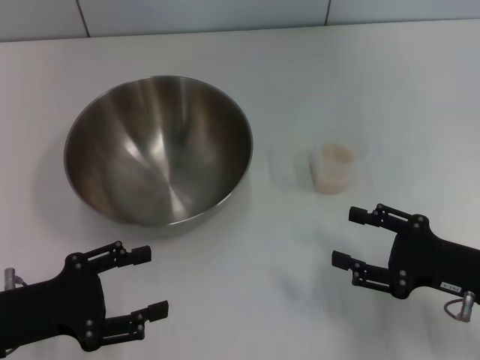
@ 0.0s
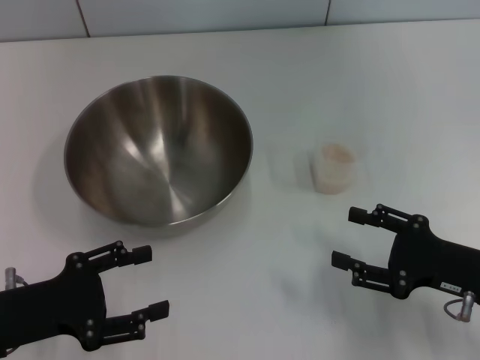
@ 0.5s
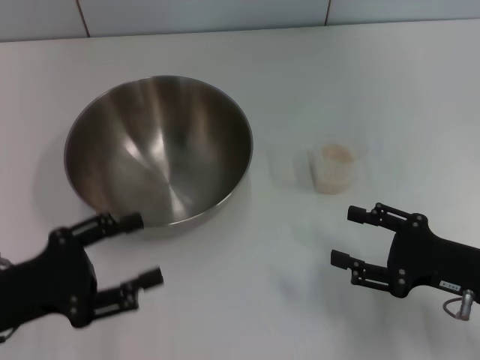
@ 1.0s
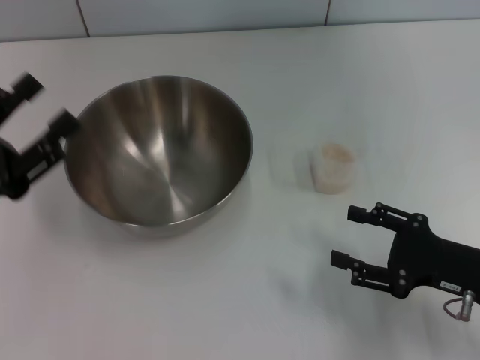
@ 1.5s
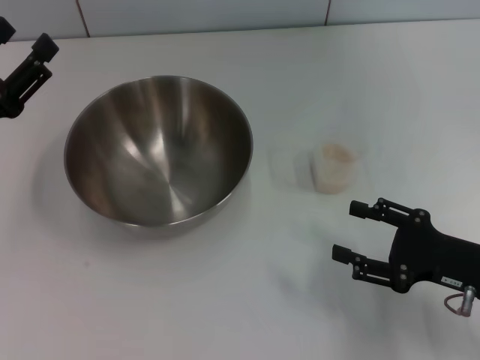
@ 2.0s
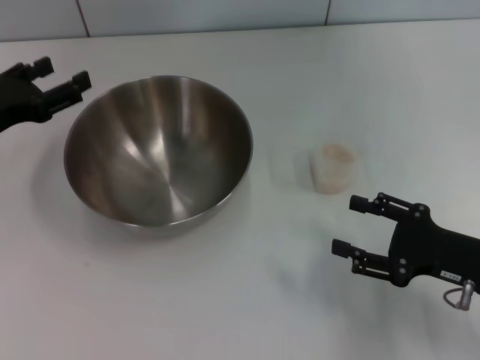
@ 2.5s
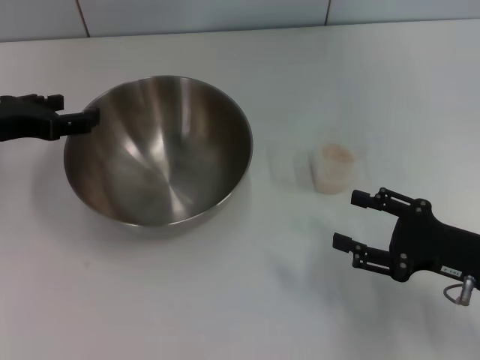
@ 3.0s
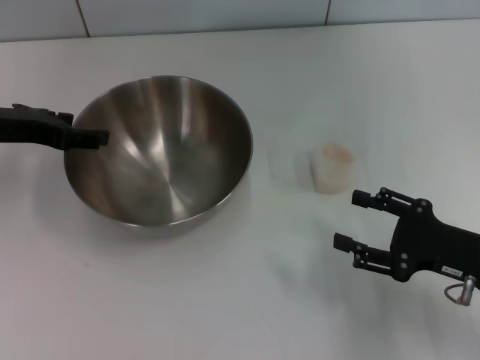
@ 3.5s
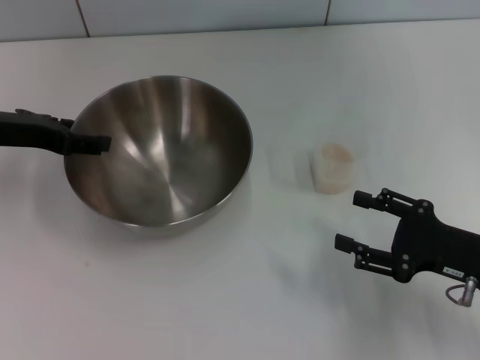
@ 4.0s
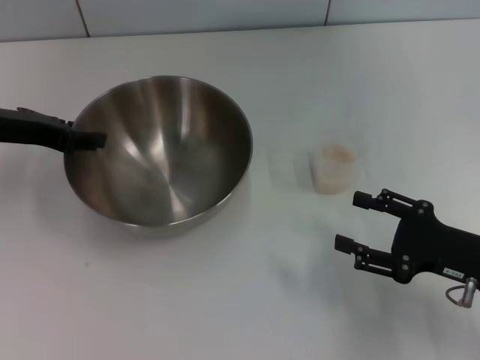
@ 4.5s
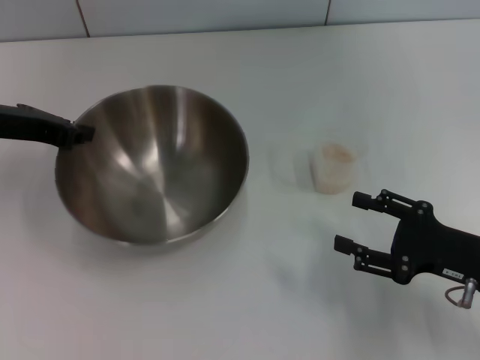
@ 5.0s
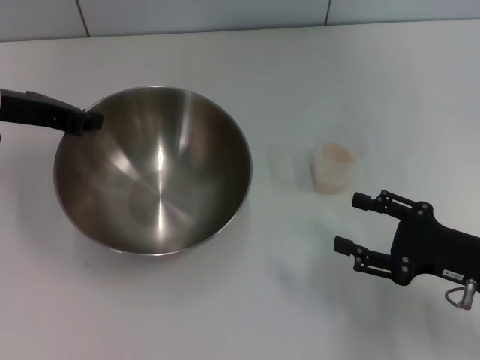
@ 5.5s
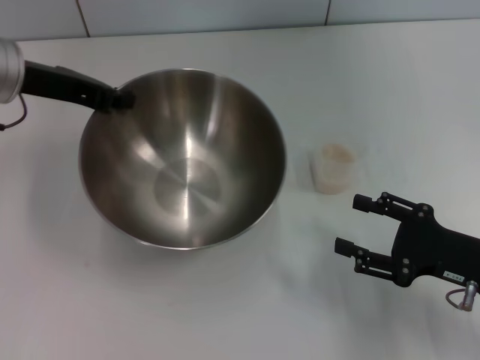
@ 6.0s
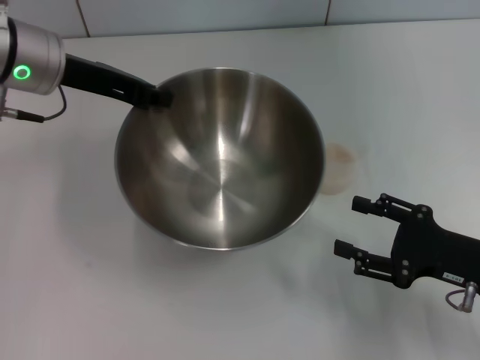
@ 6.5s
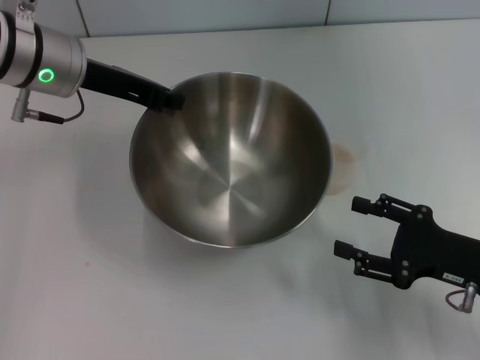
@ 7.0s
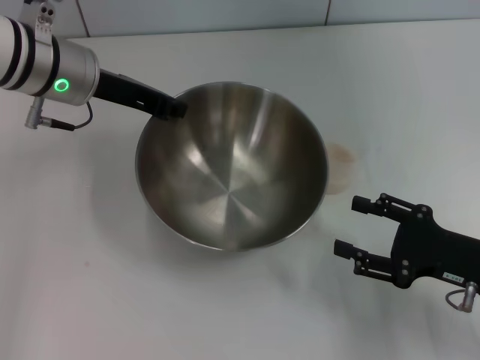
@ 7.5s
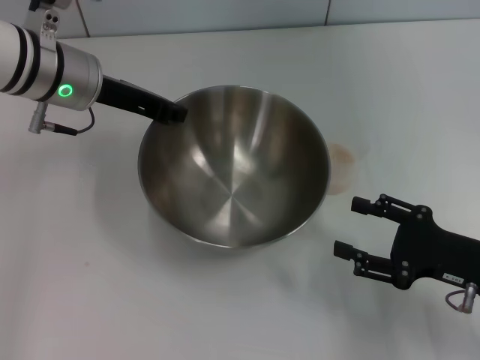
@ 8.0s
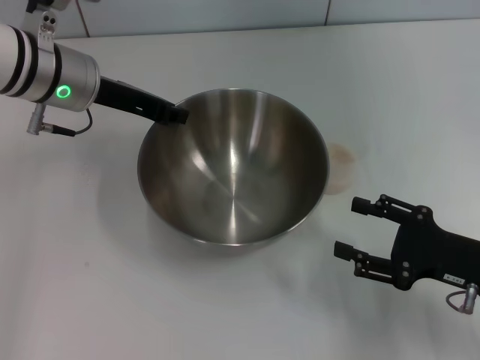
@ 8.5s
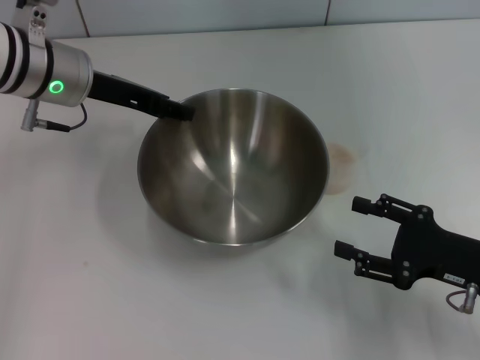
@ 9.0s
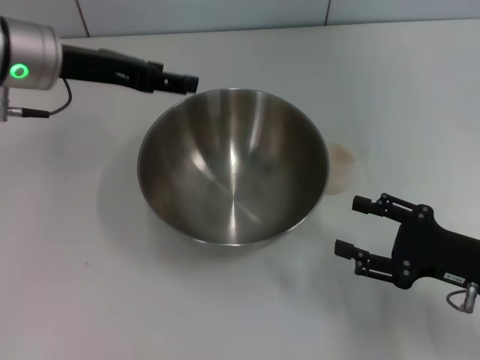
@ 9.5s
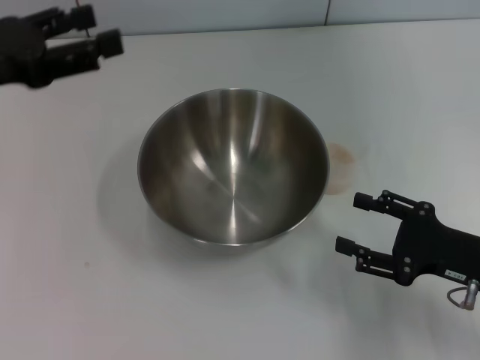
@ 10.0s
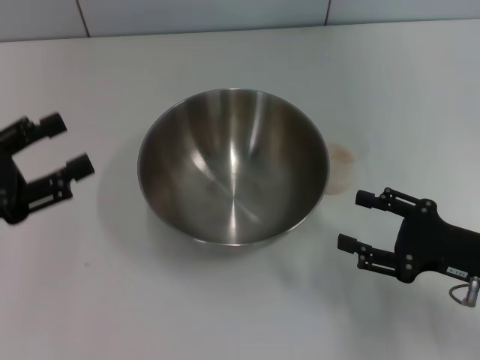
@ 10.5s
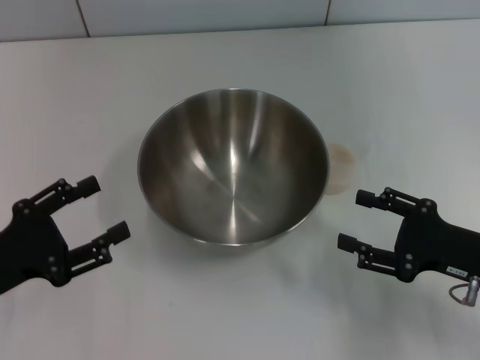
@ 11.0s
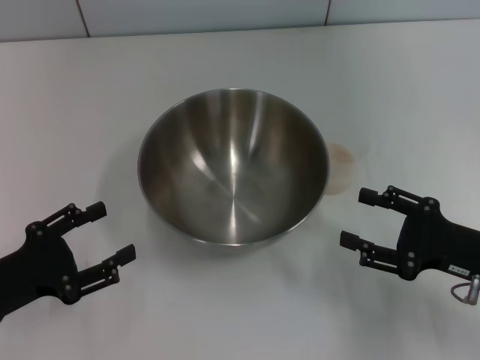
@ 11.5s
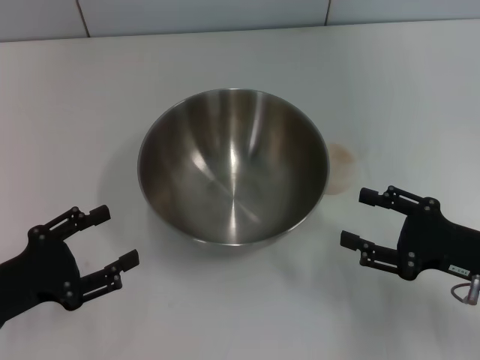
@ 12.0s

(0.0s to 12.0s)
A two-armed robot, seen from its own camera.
Task of the whole recording: Place the bowl in the middle of the table with one hand and pour the rice from the grain cup into it with the other hand.
Step, 0.0s - 6.0s: Pick up the bowl with the left gripper.
Step, 6.5s - 9.5s: Place the bowl in the center of view with the left gripper.
0.0s - 2.0s: The left gripper shifts some 10 cm forward.
2.0s - 4.0s: The left gripper moves forward, some 10 cm.
4.0s - 6.0s: The left gripper shifts by some 5 cm, and closes its fingers.
6.0s - 8.0s: The left gripper is displaced to the right by roughly 5 cm.
8.0s - 10.0s: The left gripper shifts approximately 15 cm to the left and backward, and opens up.
10.0s - 12.0s: The left gripper shifts about 20 cm downward and backward.

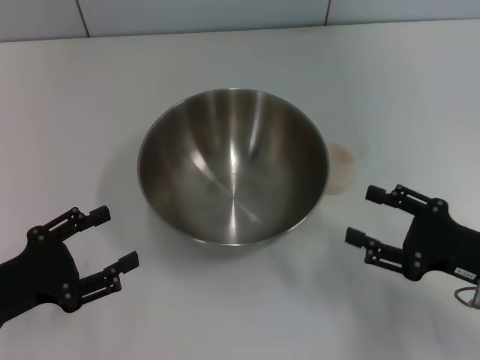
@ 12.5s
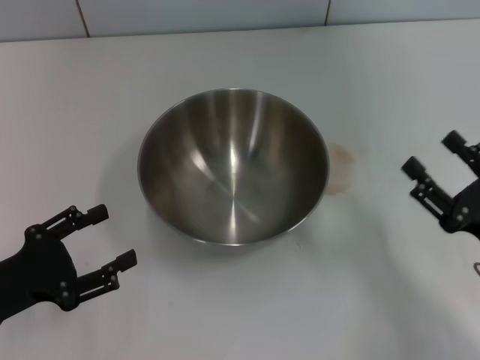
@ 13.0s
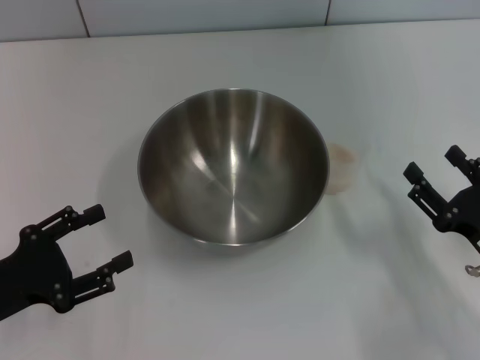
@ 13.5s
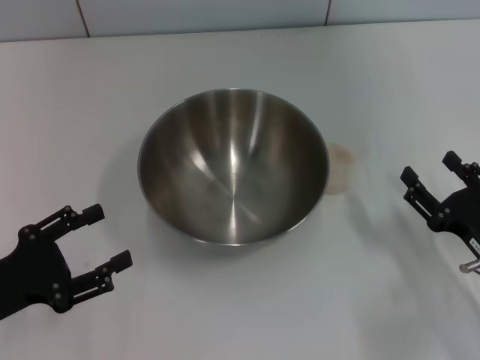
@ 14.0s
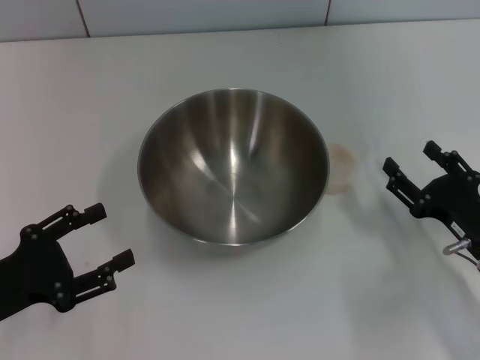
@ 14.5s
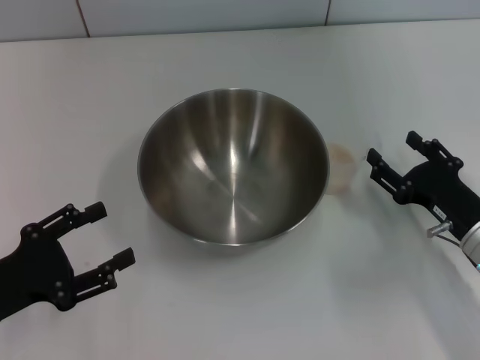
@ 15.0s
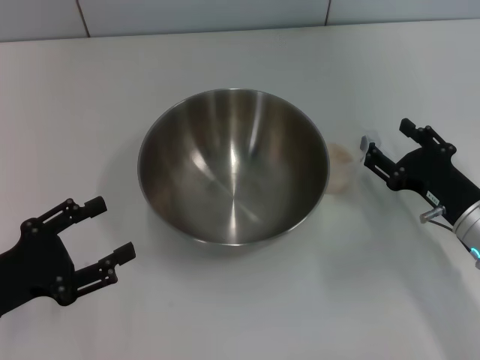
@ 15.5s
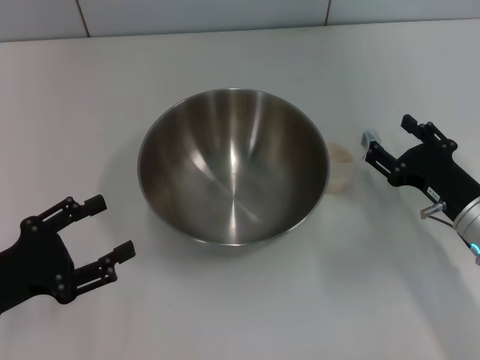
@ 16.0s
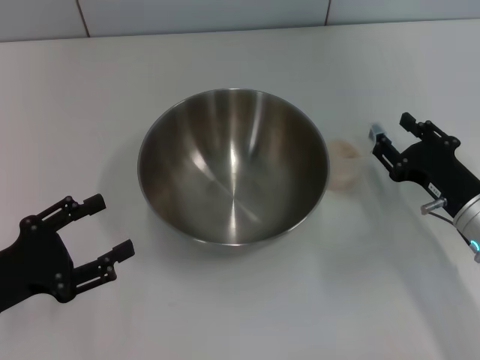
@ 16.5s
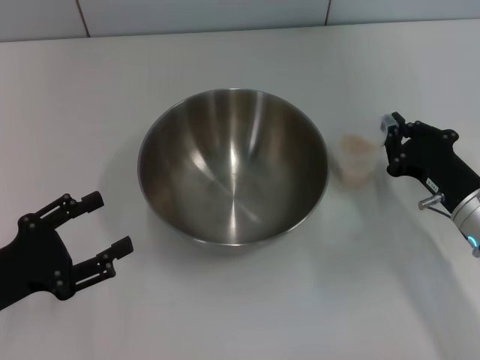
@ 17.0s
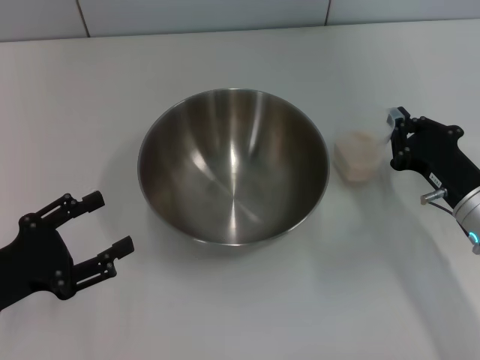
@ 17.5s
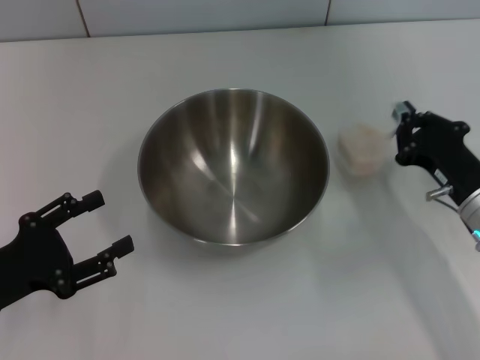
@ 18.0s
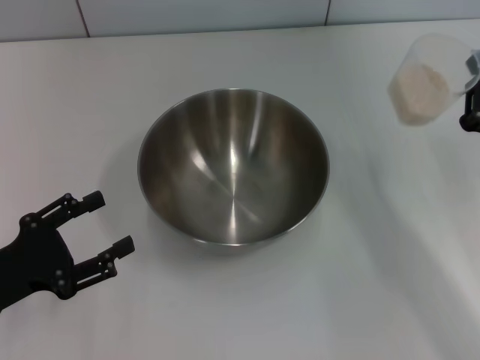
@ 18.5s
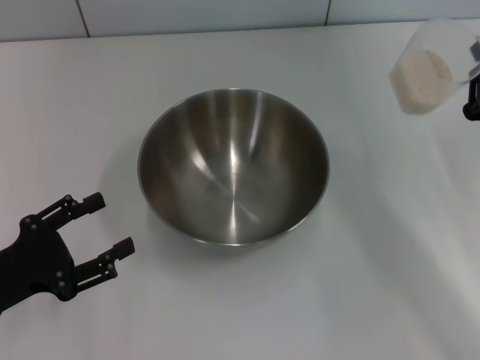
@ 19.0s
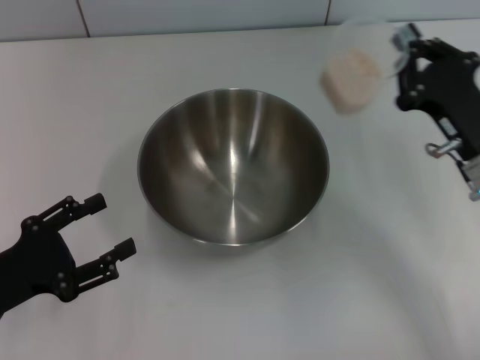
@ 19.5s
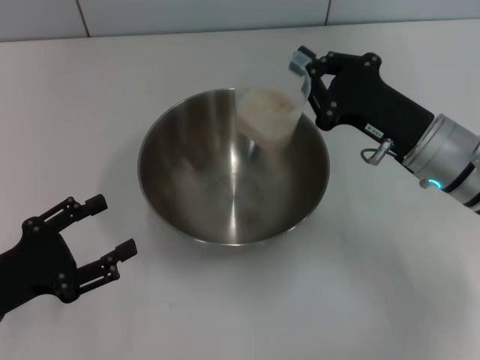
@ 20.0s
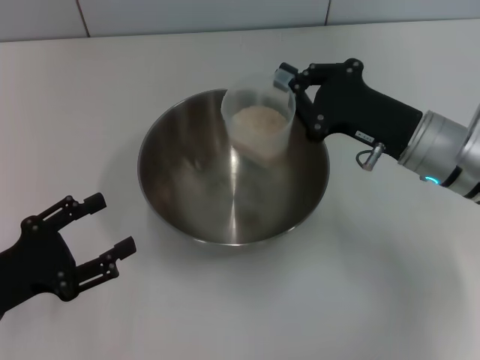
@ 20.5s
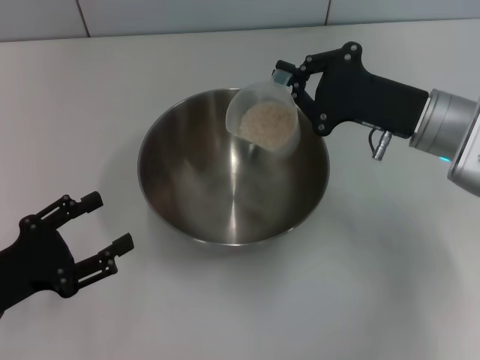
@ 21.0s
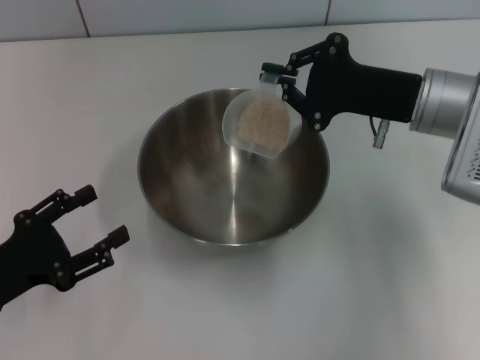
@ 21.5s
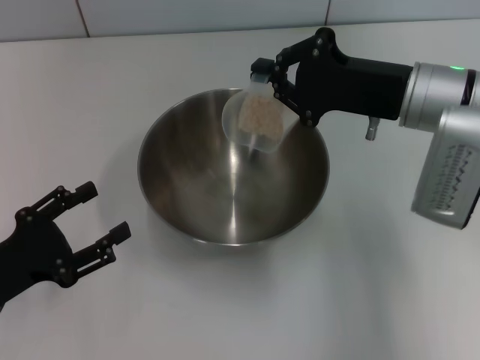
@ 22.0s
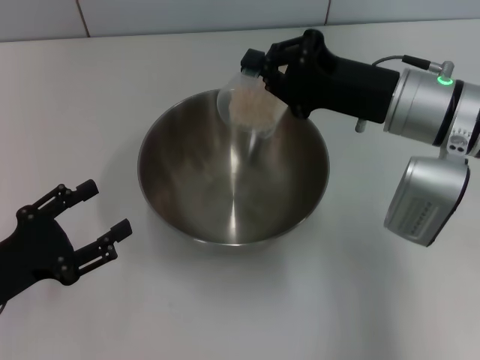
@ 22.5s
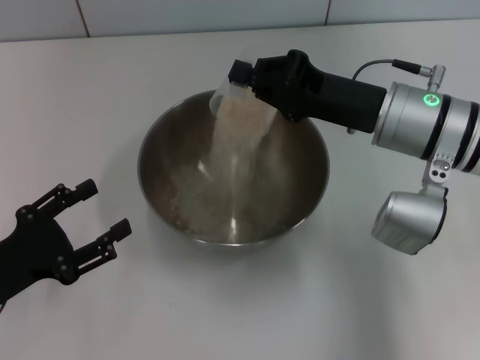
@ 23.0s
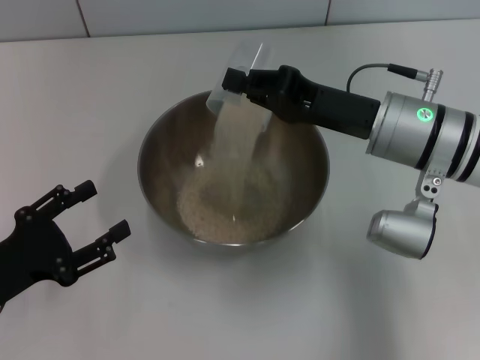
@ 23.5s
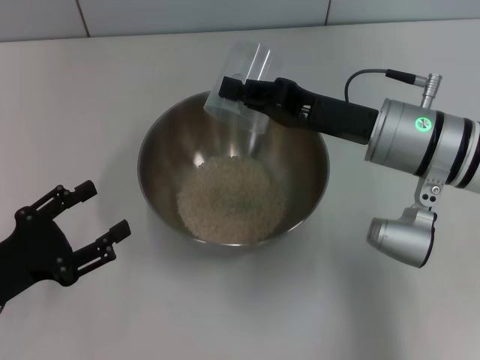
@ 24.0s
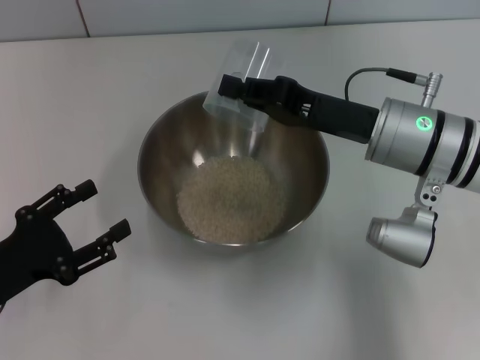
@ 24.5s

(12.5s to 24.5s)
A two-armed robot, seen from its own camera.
Task of the whole recording: Place the bowl in the middle of the table with one hand and pour the rice from the grain cup into it with the other hand.
Step, 12.5s - 18.0s: Pick up the cup with rice in it with the right gripper.
14.5s - 16.5s: There are only small adjustments of the grippers.
16.5s - 18.5s: The right gripper shifts by approximately 5 cm, and closes up.
18.5s - 20.5s: The right gripper heads to the left and forward, covering about 10 cm.
20.5s - 22.5s: The right gripper ends up roughly 5 cm from where it was.

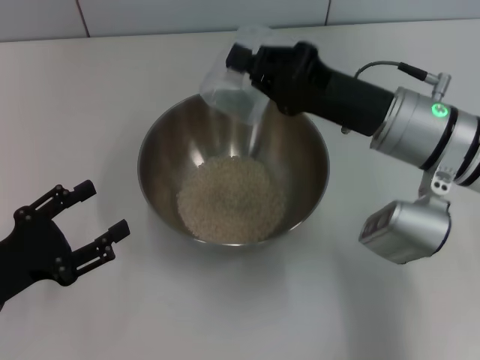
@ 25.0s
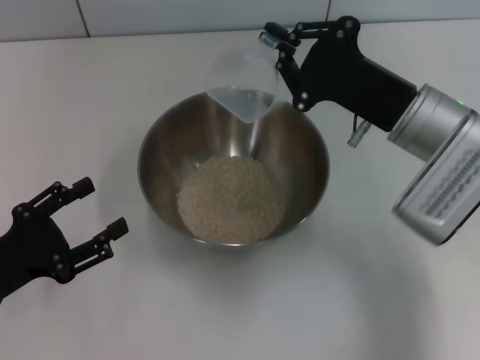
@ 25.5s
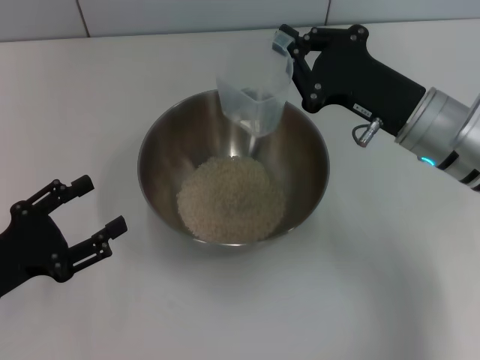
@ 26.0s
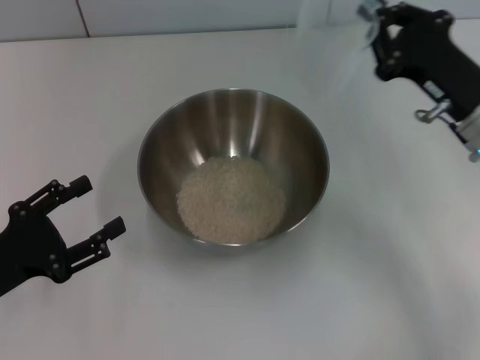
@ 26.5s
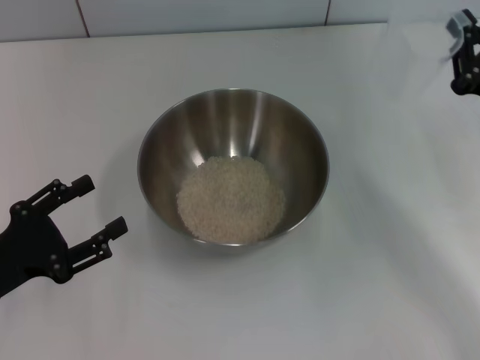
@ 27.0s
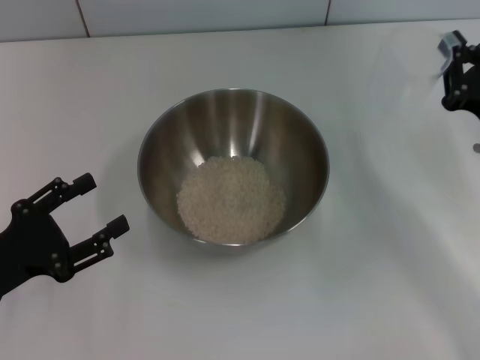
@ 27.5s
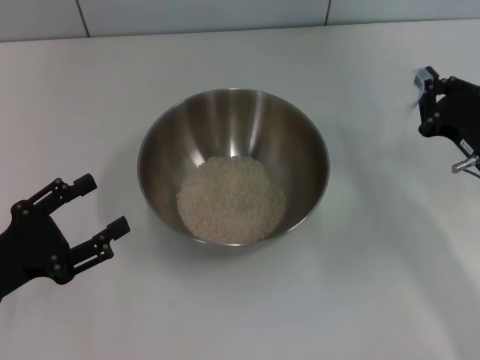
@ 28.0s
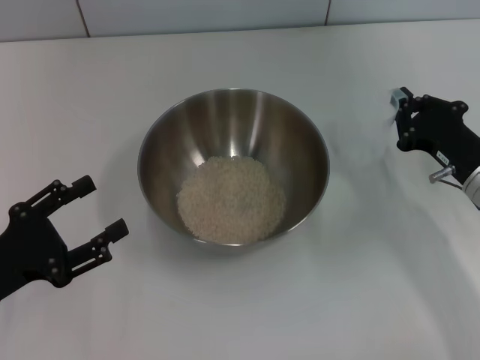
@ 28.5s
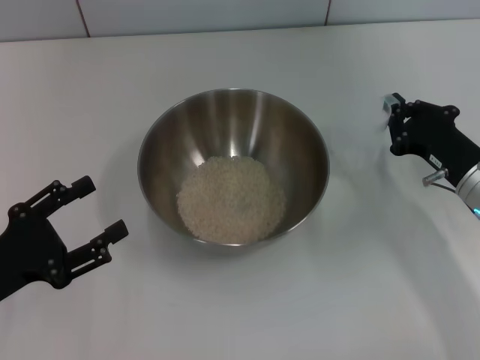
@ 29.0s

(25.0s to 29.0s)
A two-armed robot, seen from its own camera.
Task of the whole recording: Place the bowl in the middle of the table with one hand and pour the rice from the grain cup into it with the other hand.
25.0s - 27.0s: The right gripper travels to the right by roughly 15 cm.
27.0s - 29.0s: The right gripper moves downward, roughly 5 cm.
